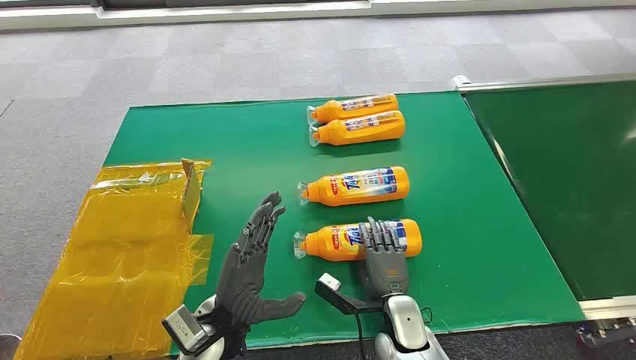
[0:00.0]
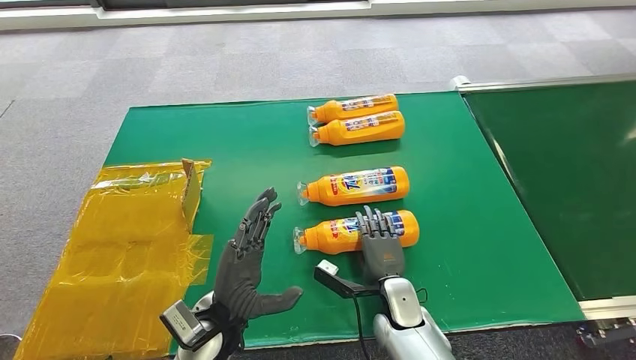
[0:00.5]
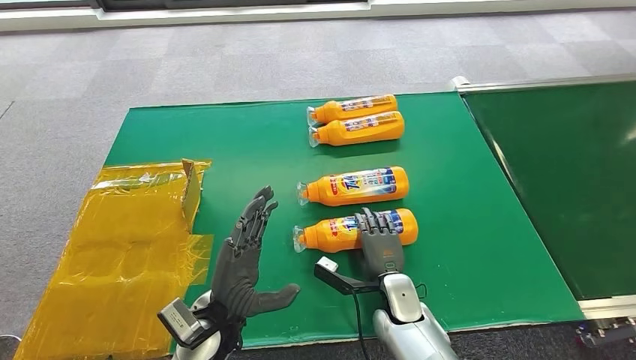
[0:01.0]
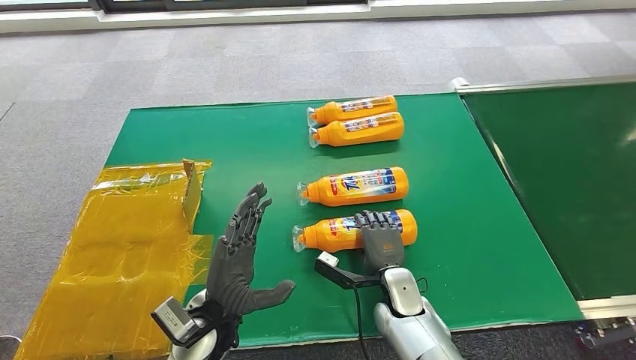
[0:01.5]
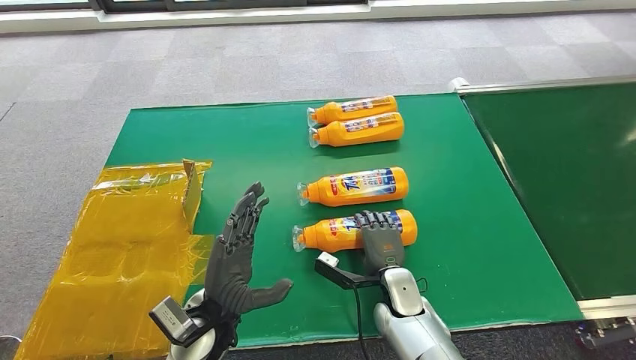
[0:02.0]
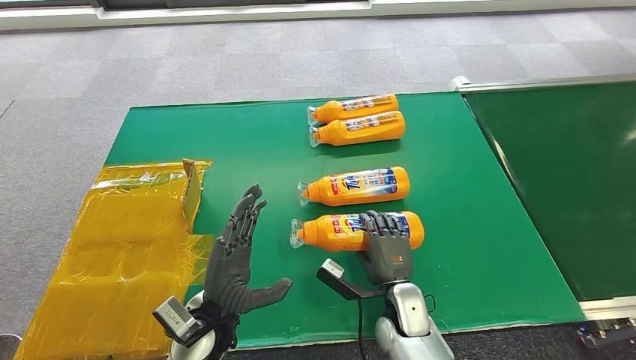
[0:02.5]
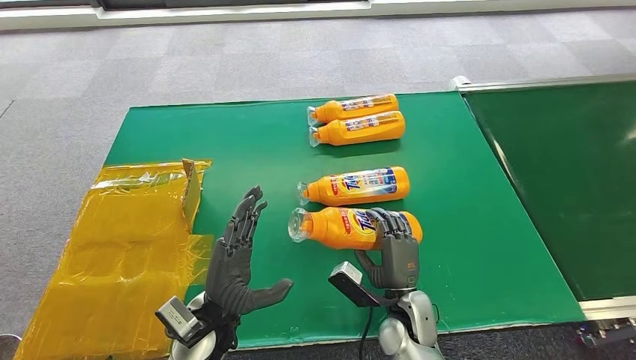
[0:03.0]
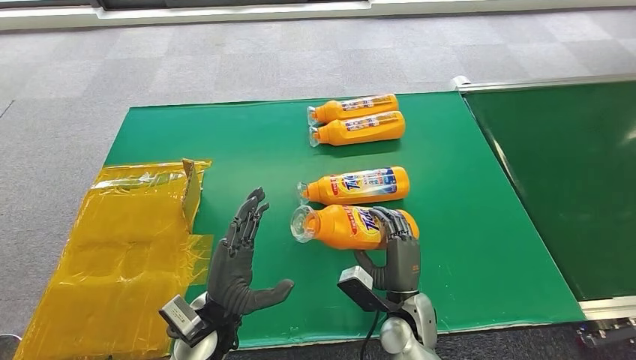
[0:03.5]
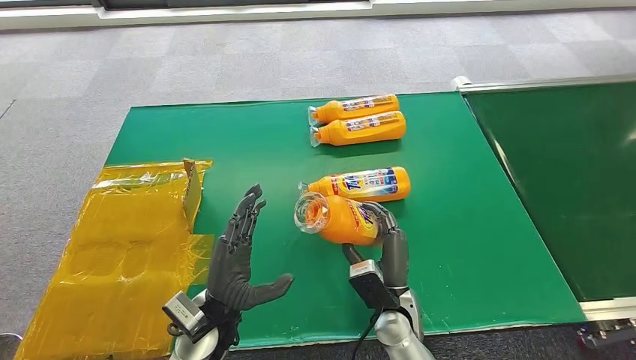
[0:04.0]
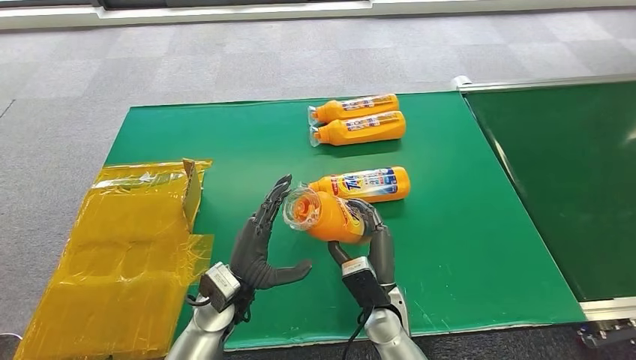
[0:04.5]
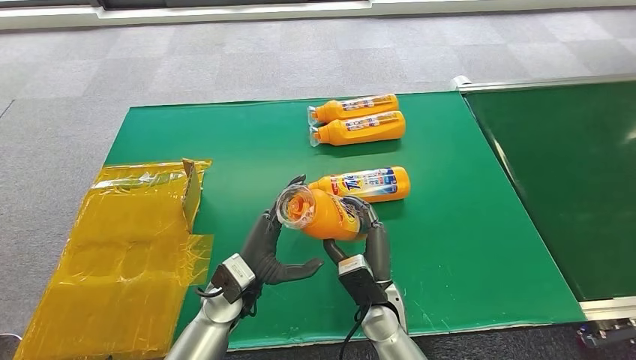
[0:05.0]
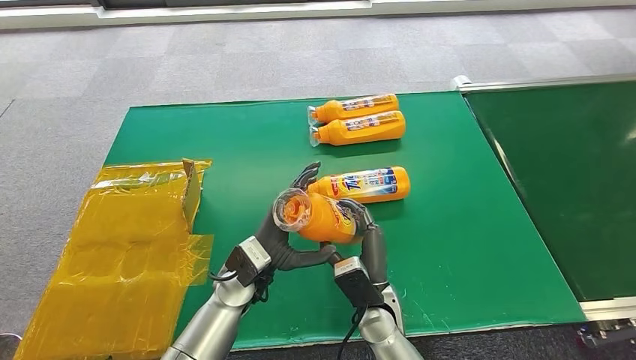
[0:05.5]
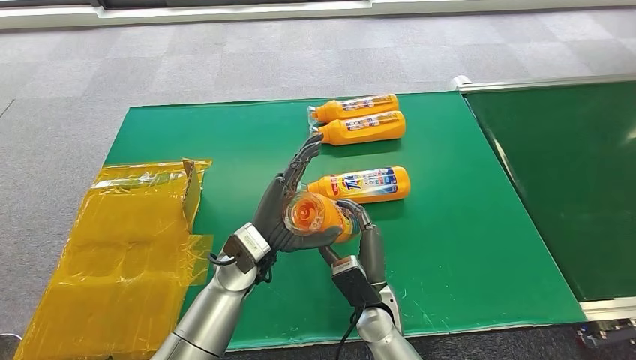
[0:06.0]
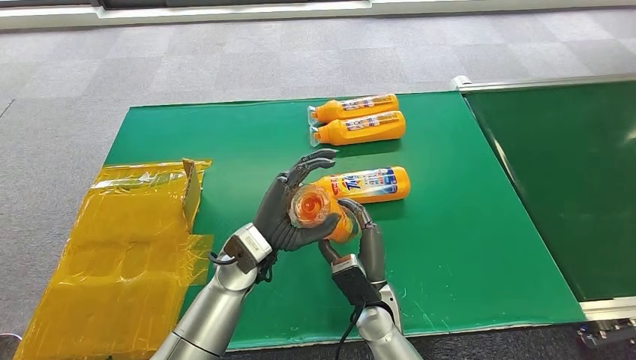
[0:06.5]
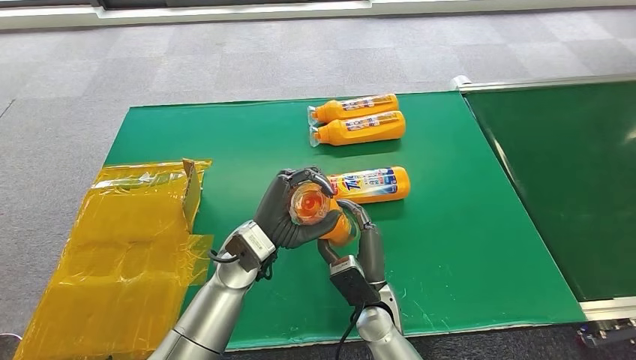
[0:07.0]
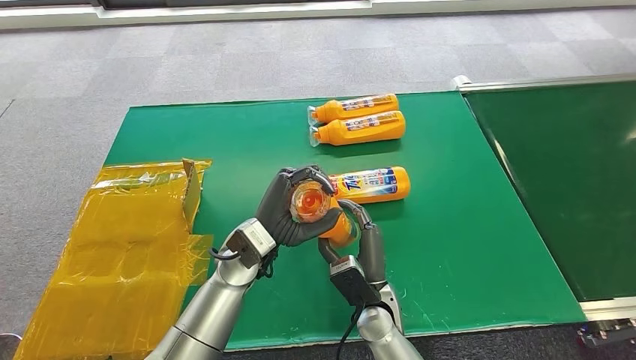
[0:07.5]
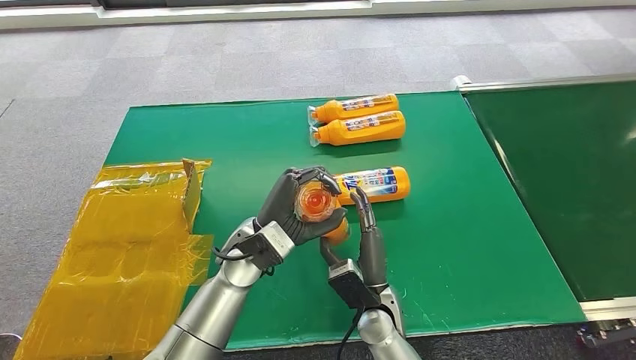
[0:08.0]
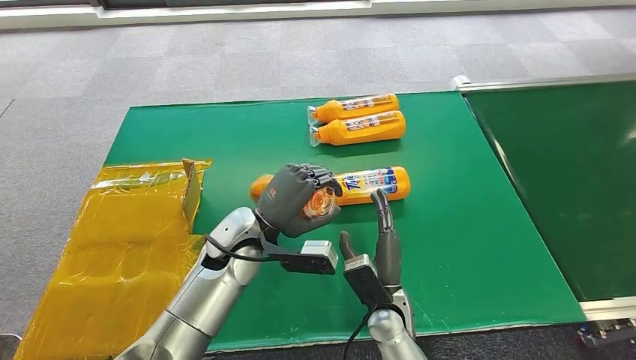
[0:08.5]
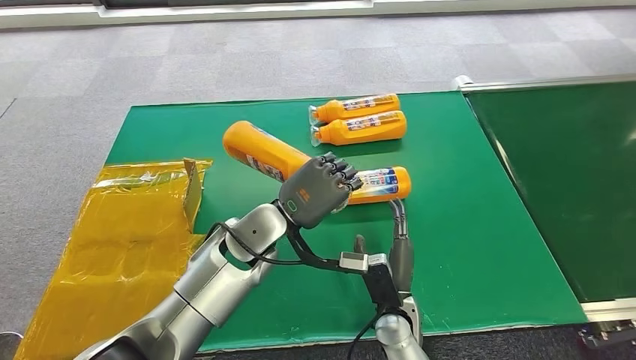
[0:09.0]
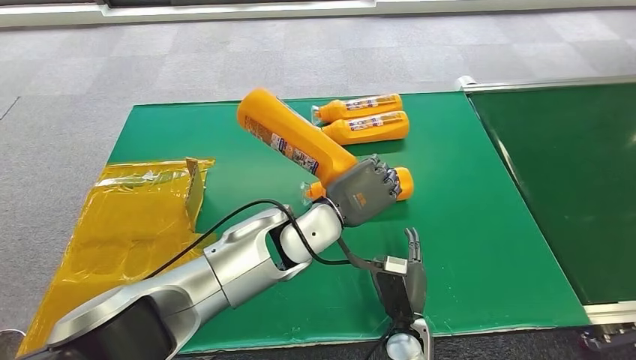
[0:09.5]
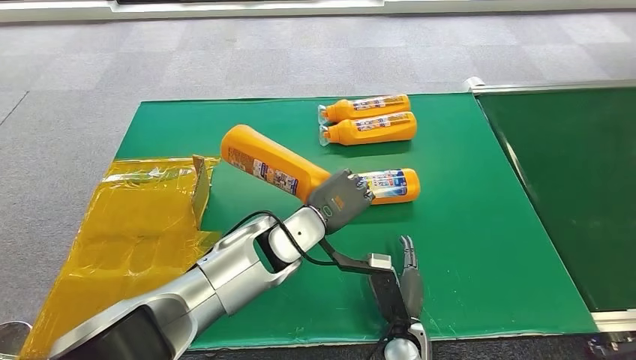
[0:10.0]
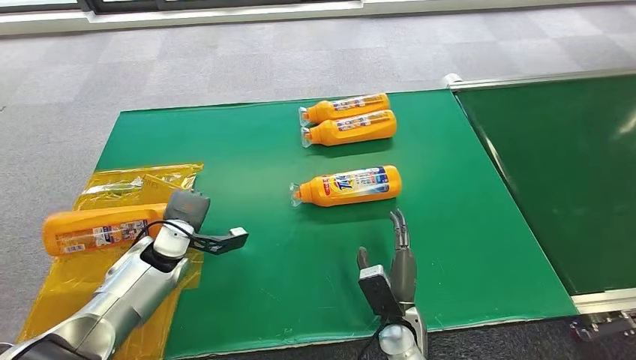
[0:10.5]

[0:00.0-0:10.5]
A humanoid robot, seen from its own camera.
Step, 0:00.0 to 0:02.5: Pick up the bottle from the table.
Step, 0:03.0 to 0:10.5: Turn the bottle to the front side.
0:02.0 to 0:04.0: The right hand changes place by approximately 5 cm.
0:04.0 to 0:06.5: The left hand shifts roughly 10 cm forward, upward and to the right.

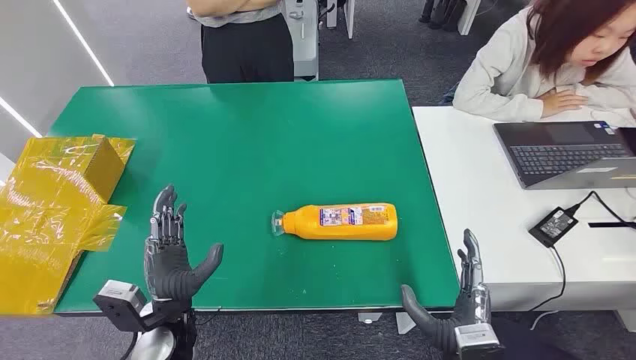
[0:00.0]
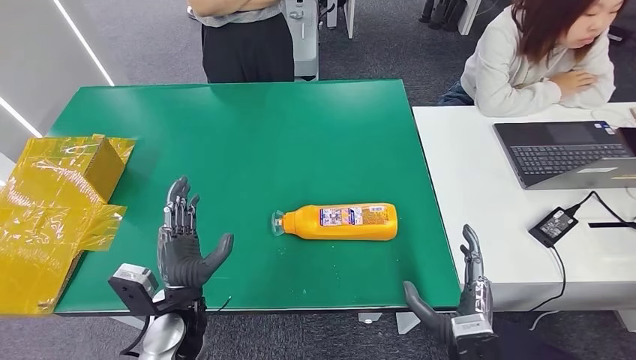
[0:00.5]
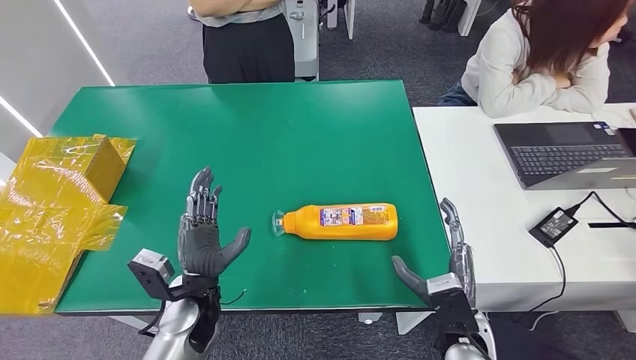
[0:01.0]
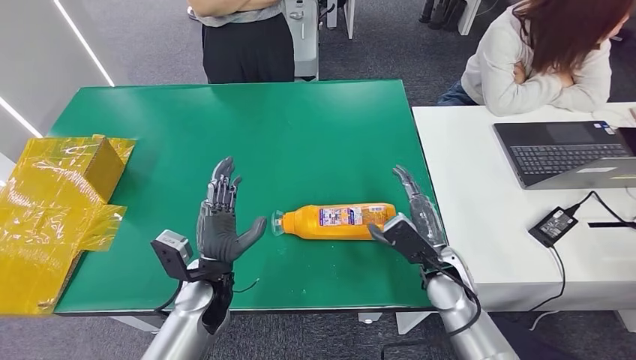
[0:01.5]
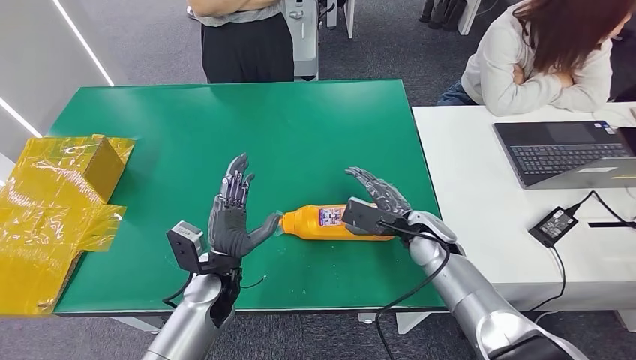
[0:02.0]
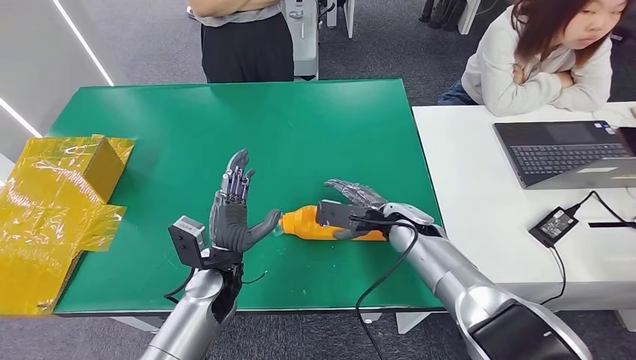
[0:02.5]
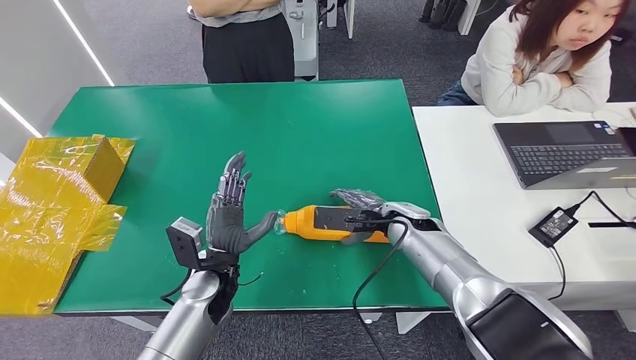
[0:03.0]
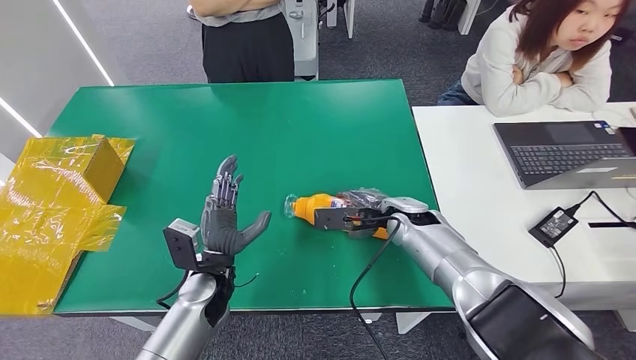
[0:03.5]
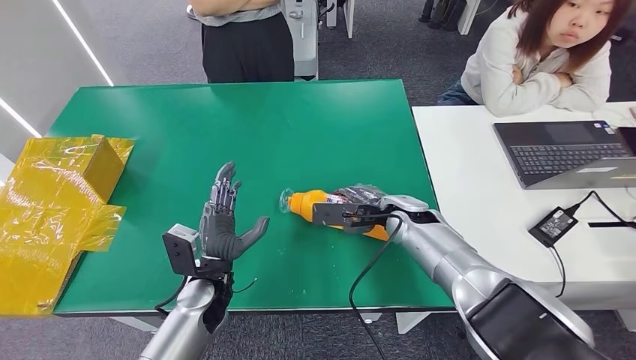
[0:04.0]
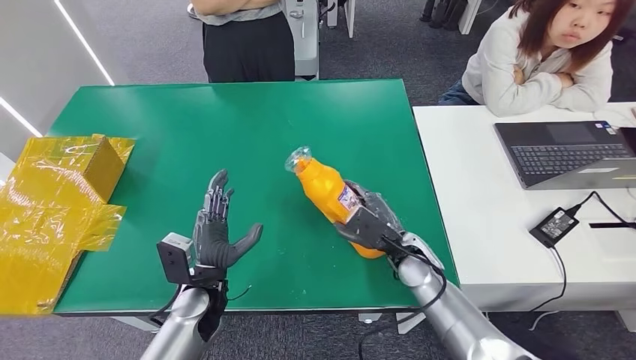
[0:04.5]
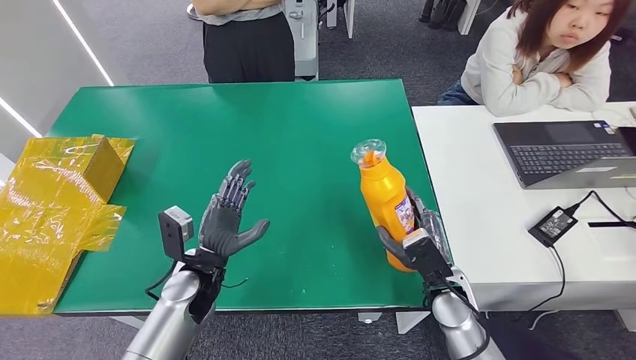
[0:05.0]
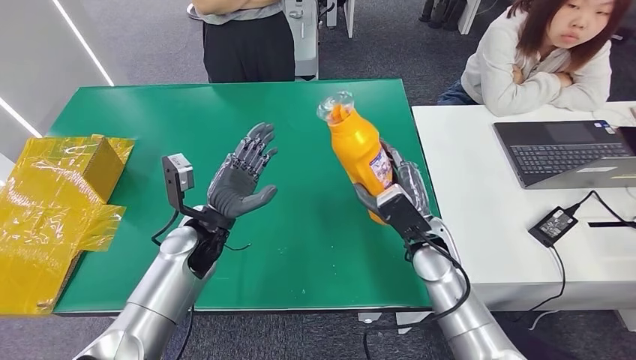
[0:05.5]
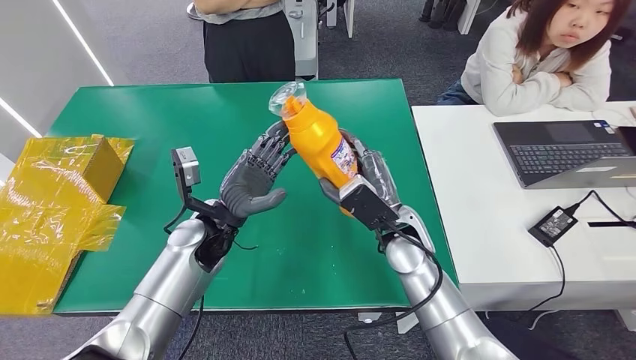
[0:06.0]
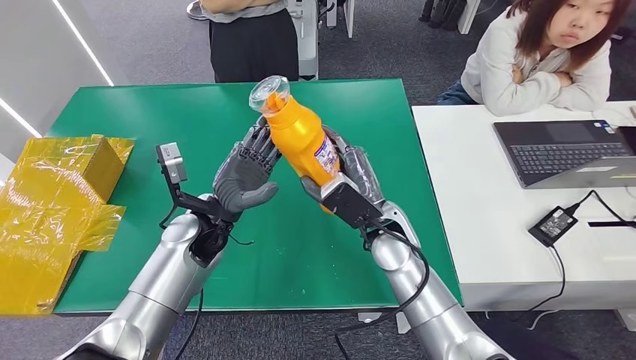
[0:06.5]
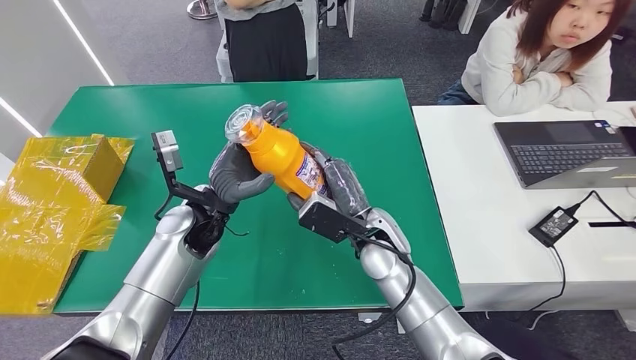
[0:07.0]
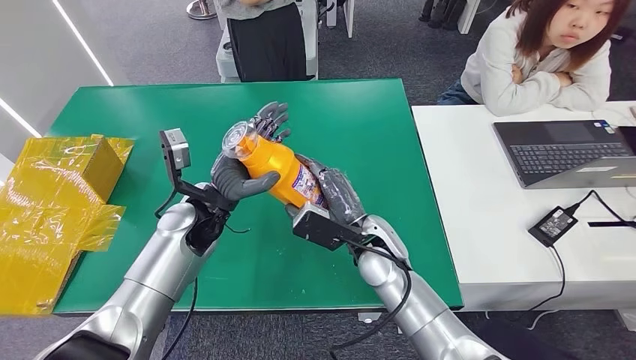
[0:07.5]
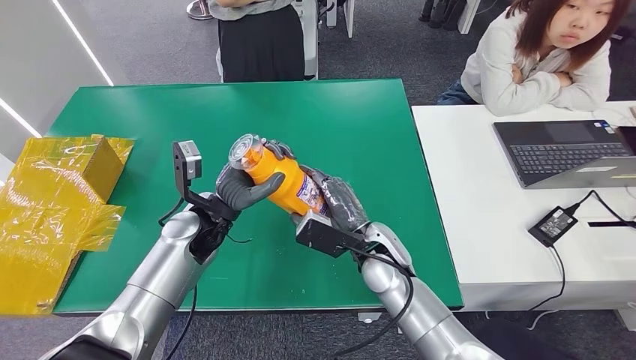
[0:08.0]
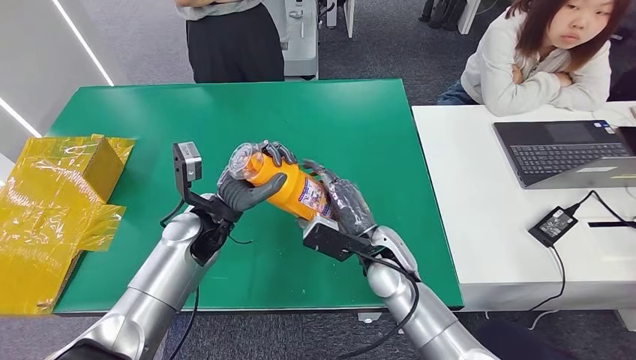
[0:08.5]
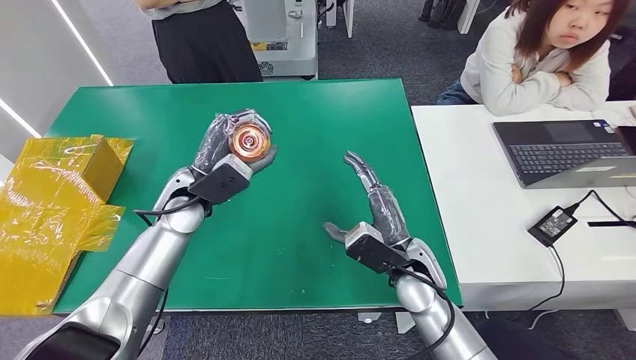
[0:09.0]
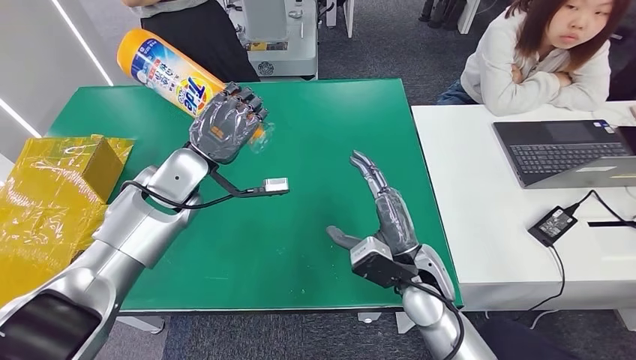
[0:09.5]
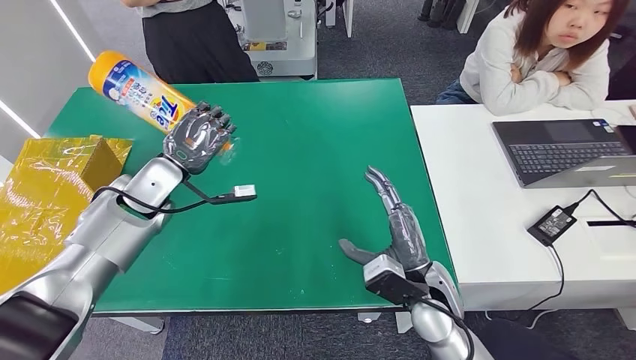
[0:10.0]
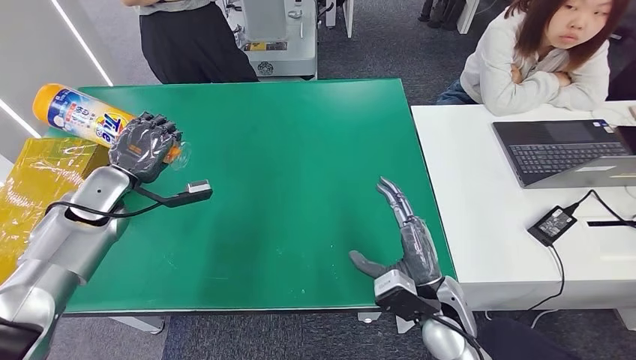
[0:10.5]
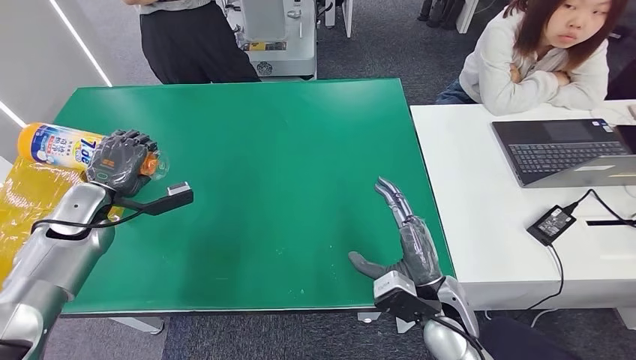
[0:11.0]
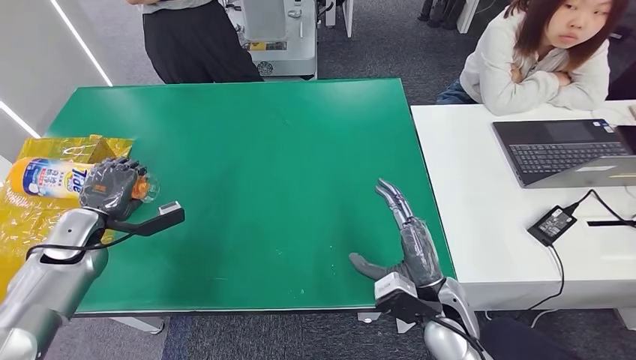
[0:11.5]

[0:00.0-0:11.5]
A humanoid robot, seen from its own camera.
Step, 0:00.0 to 0:05.0: Pick up the bottle from the table.
Step, 0:05.5 to 0:11.5: Turn the bottle to the front side.
0:02.0 to 0:04.0: The right hand moves roughly 5 cm.
0:04.0 to 0:06.0: The left hand moves upward and forward, approximately 10 cm, while the right hand moves backward, about 5 cm.
0:06.0 to 0:07.5: The hands stay close to where they were, moving slightly.
